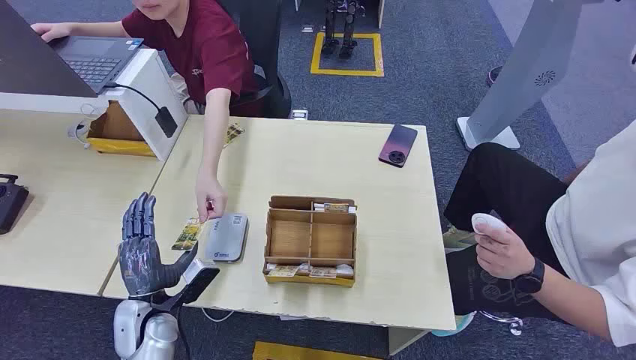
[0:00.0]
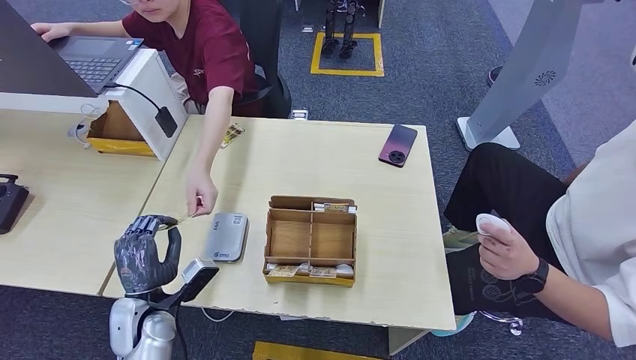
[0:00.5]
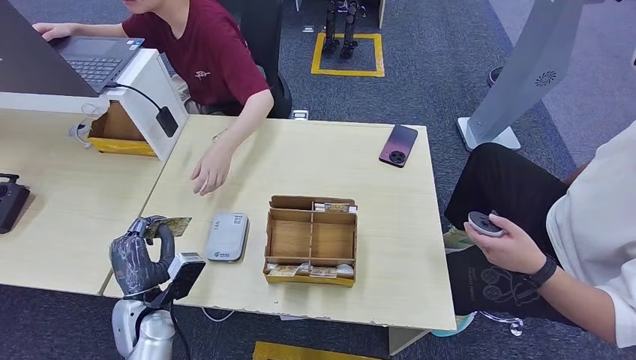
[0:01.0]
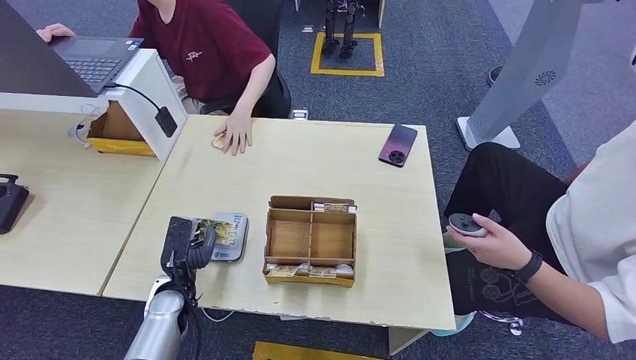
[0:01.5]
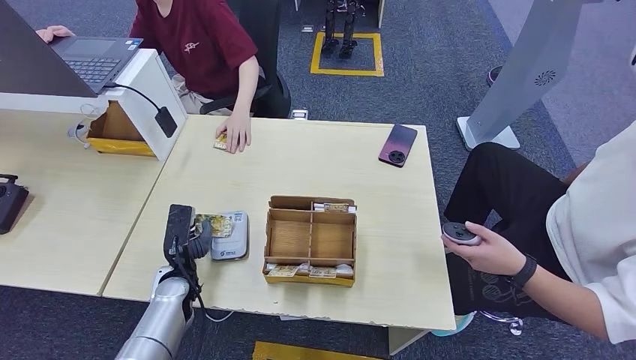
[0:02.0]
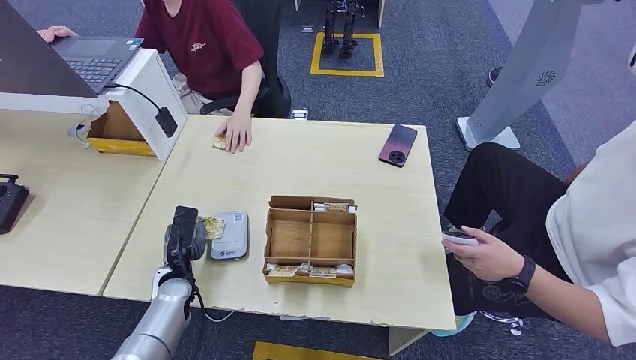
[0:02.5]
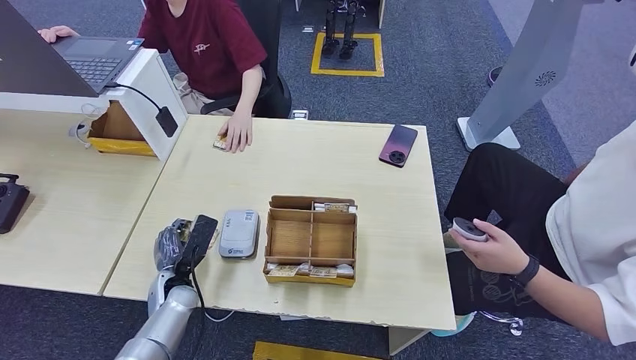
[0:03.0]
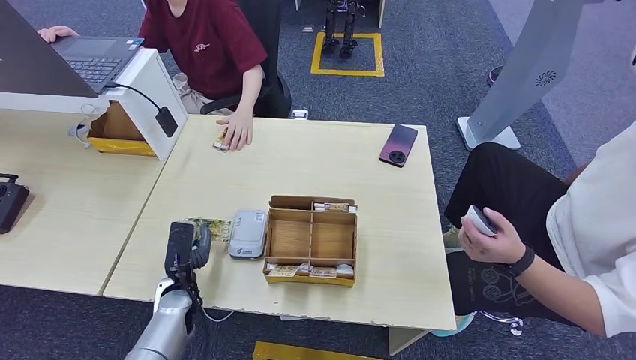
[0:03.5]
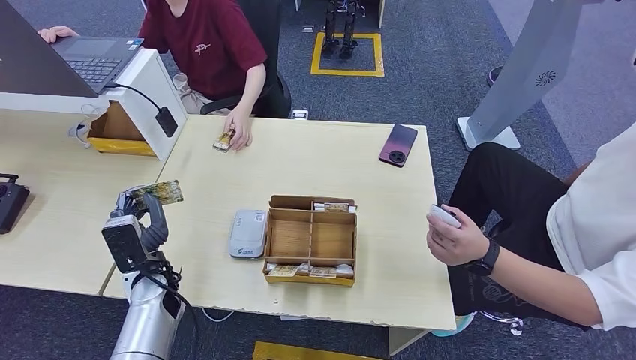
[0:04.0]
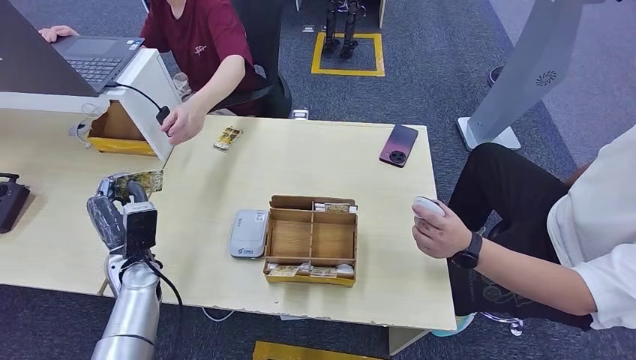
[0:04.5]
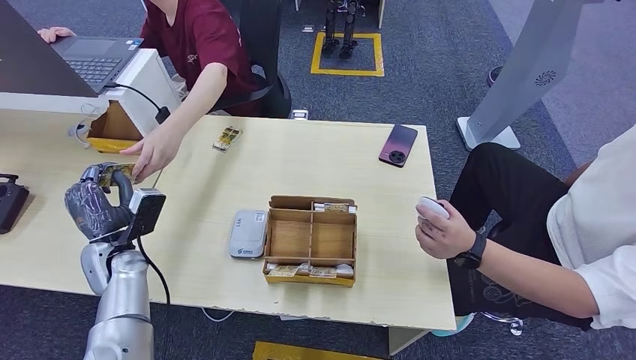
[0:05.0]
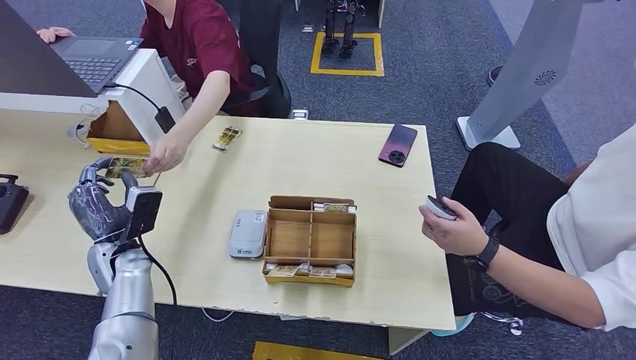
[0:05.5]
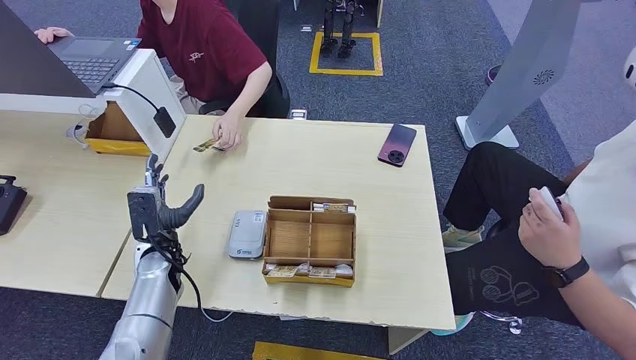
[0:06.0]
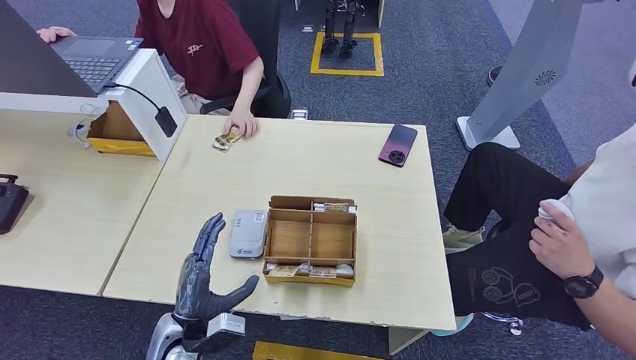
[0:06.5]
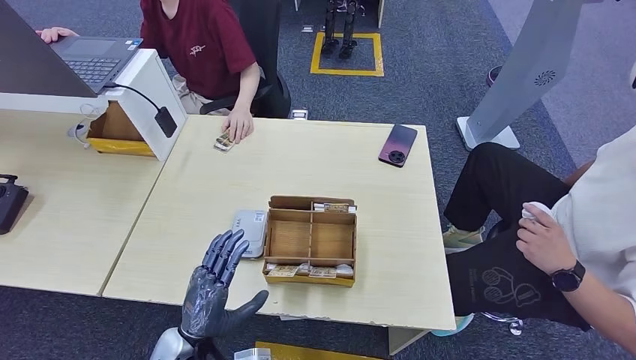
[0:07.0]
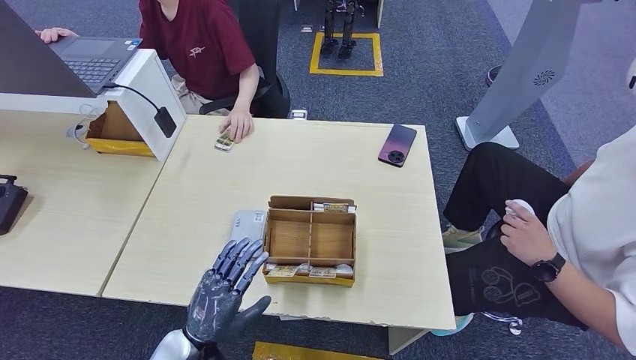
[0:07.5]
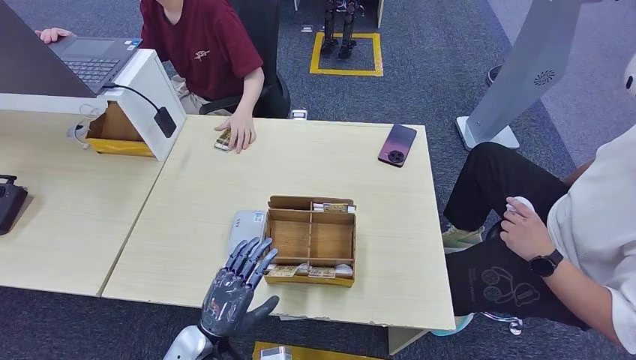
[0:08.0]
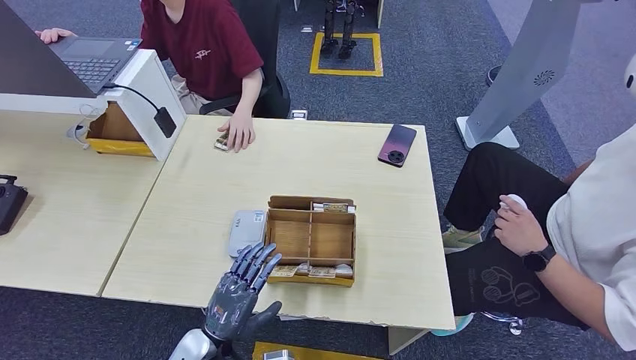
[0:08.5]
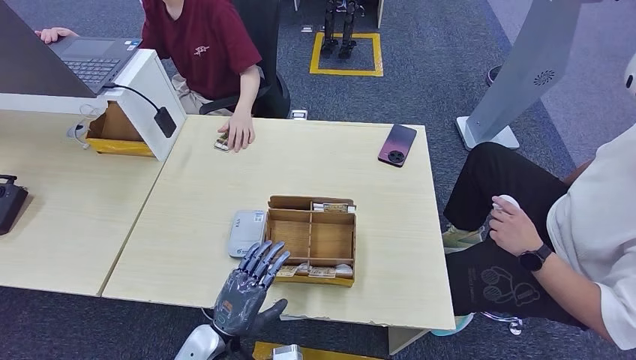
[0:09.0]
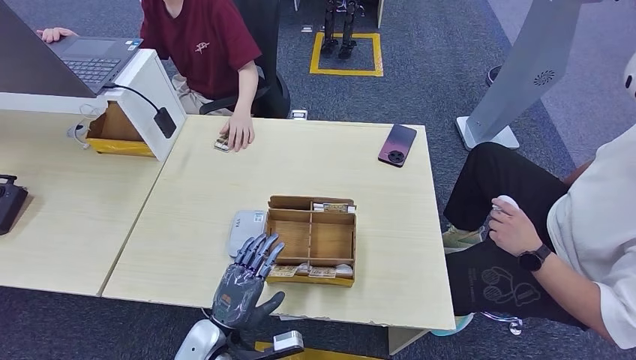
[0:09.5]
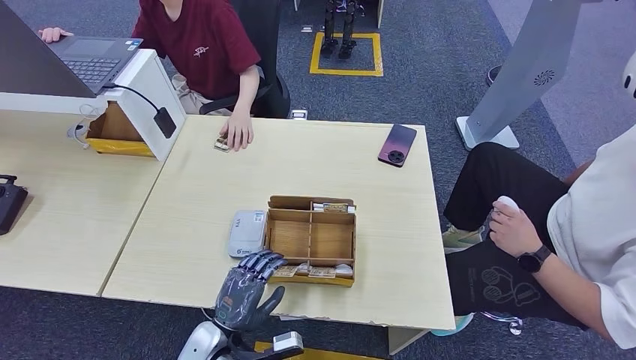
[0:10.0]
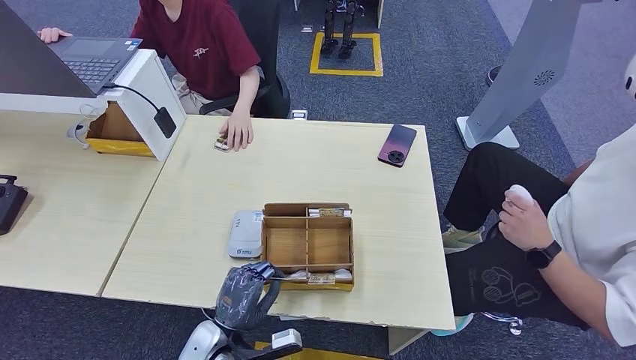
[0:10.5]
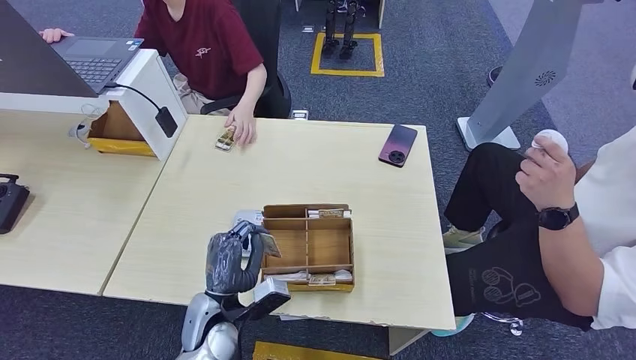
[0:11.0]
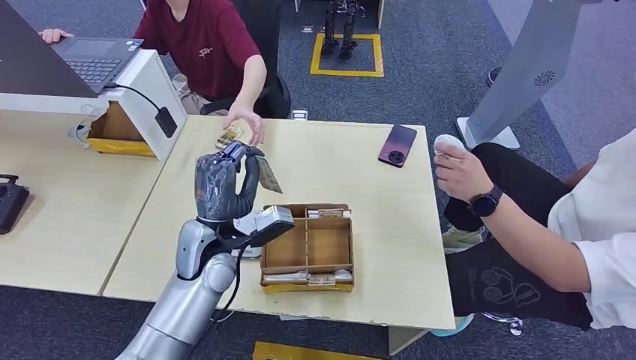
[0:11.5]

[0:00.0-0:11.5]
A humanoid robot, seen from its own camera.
Step, 0:00.0 to 0:01.0: Take the ID card from the person's hand.
Step, 0:01.5 to 0:03.0: Place the ID card on the card reader.
Step, 0:04.0 to 0:06.5: Hand the ID card to the person.
Step, 0:07.0 to 0:10.5: Pick up the room key from the key card box.
0:02.0 to 0:04.0: The left hand is displaced upward by some 5 cm.
0:06.0 to 0:07.5: The left hand travels backward and to the right by approximately 20 cm.
0:07.5 to 0:09.5: The hands stay close to where they were, moving slightly.
0:09.5 to 0:11.5: The left hand shifts some 20 cm upward and forward.

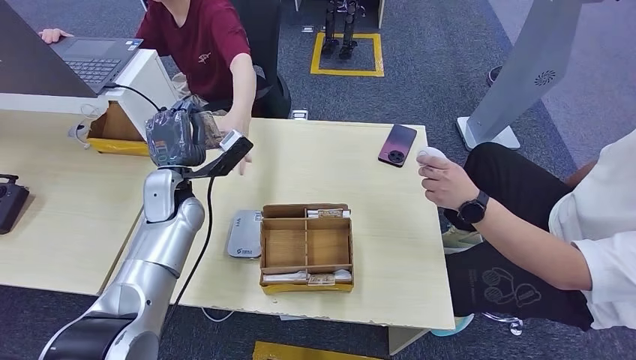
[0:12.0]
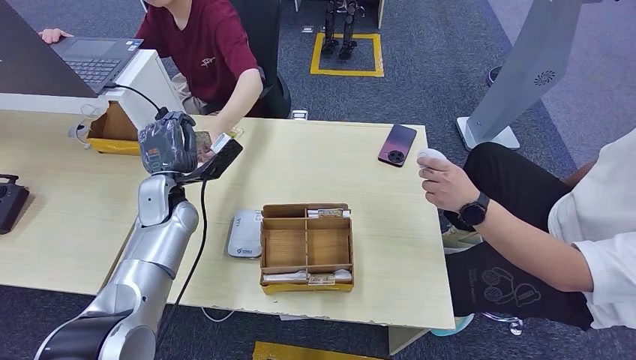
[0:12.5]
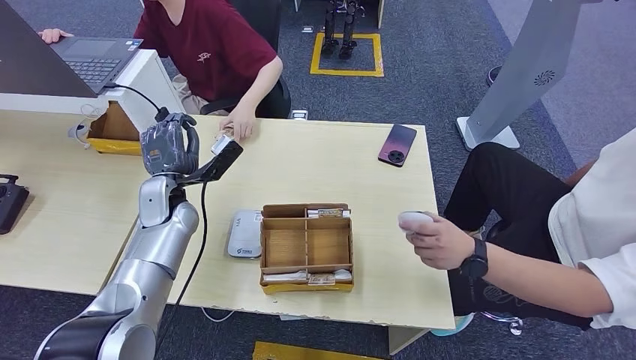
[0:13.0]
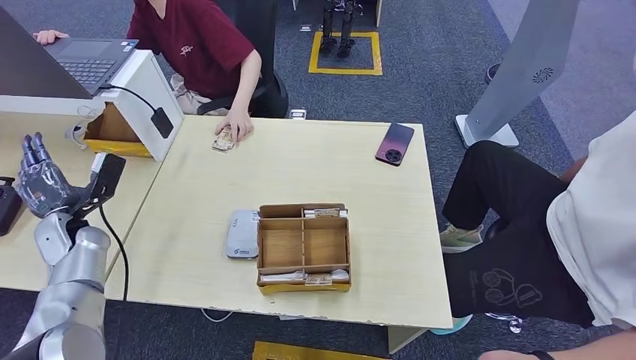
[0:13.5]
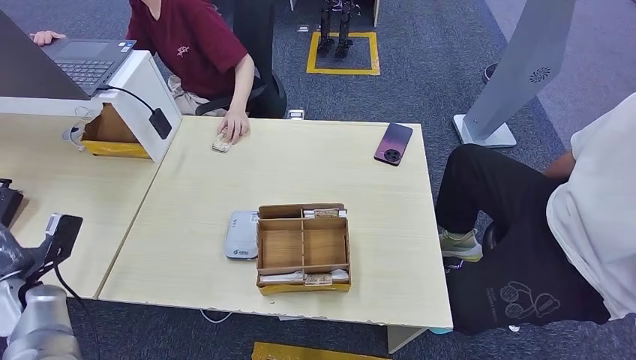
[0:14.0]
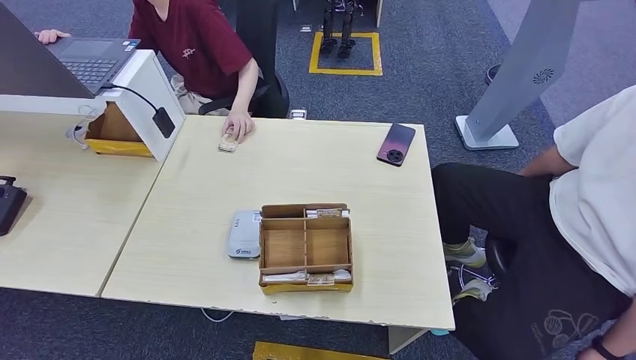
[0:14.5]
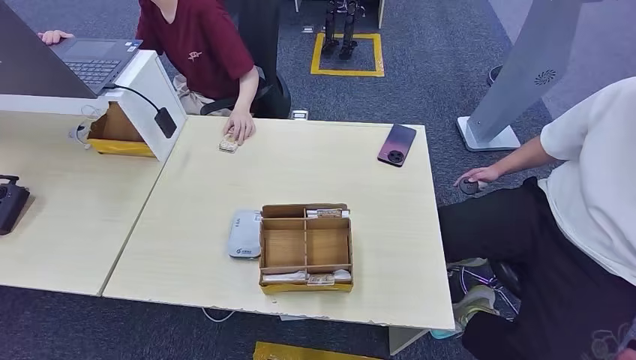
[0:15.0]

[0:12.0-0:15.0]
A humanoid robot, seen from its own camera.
Step, 0:12.0 to 0:14.5: Hand the room key to the person.
